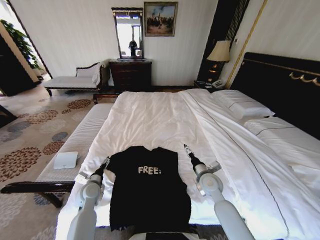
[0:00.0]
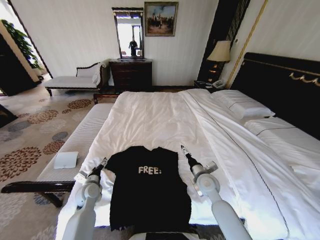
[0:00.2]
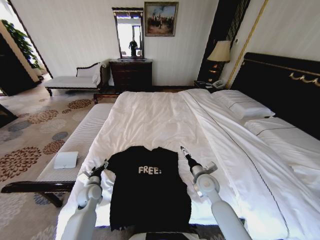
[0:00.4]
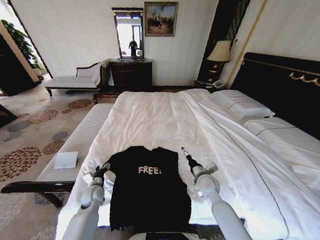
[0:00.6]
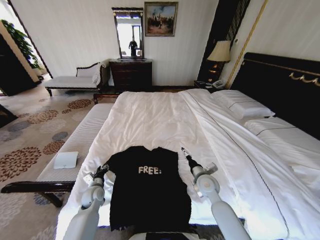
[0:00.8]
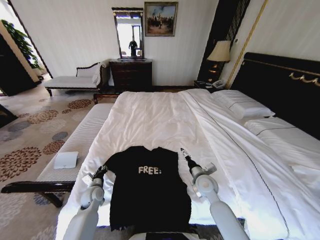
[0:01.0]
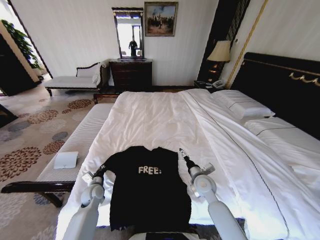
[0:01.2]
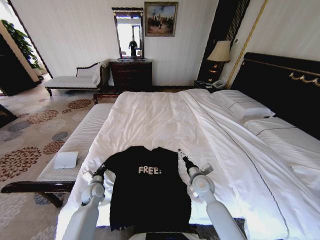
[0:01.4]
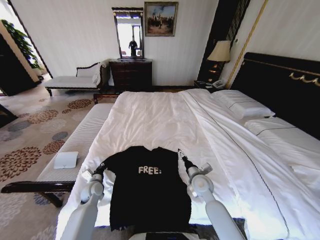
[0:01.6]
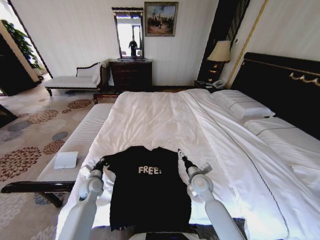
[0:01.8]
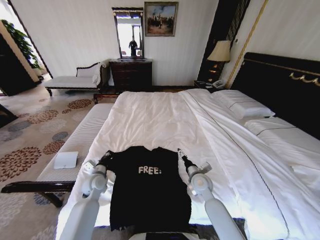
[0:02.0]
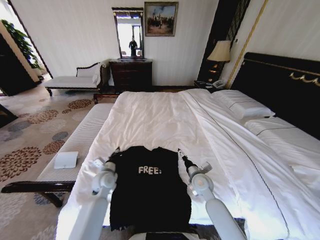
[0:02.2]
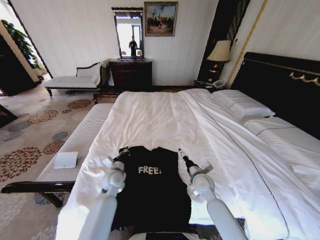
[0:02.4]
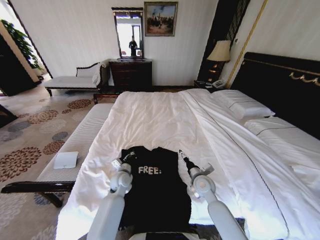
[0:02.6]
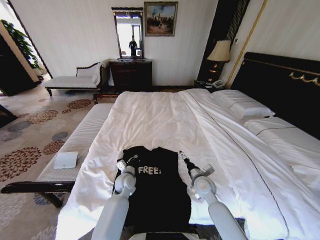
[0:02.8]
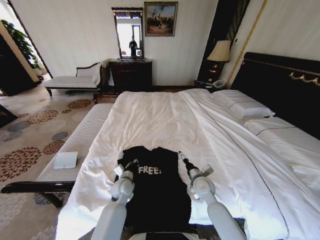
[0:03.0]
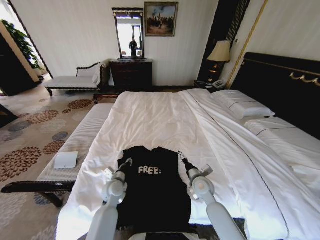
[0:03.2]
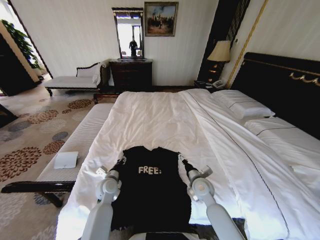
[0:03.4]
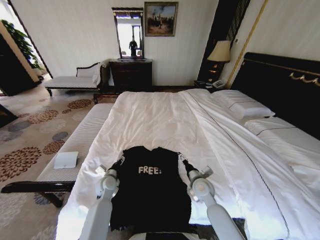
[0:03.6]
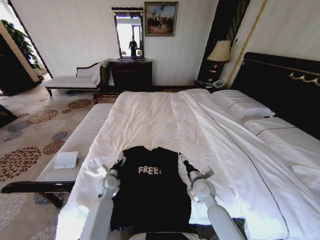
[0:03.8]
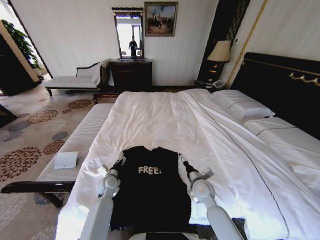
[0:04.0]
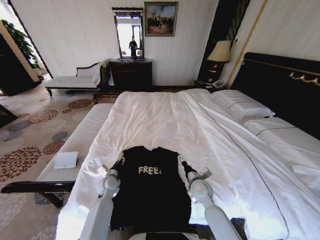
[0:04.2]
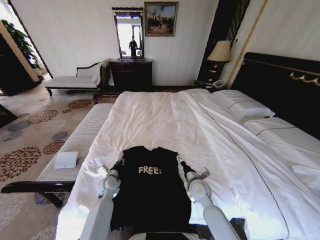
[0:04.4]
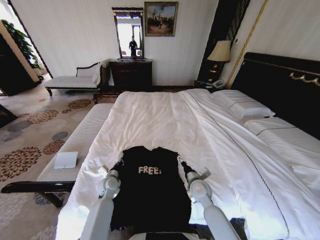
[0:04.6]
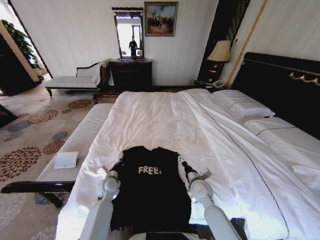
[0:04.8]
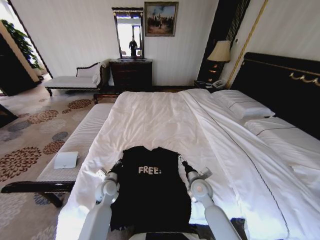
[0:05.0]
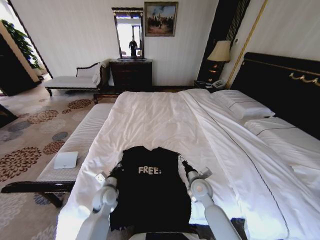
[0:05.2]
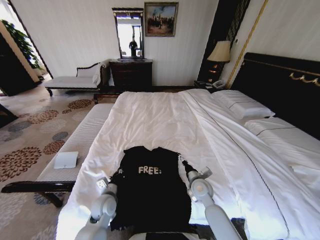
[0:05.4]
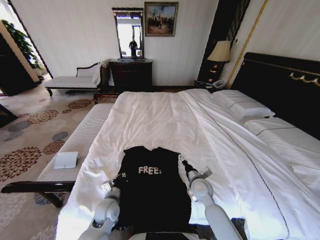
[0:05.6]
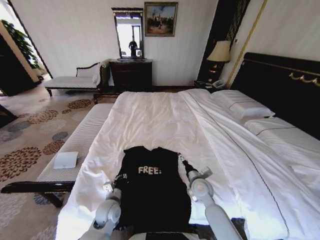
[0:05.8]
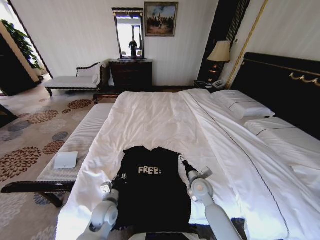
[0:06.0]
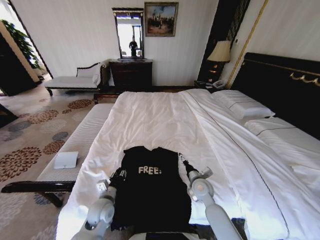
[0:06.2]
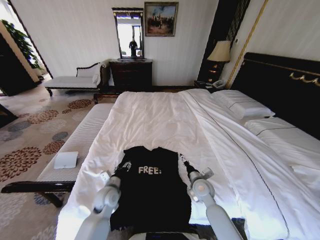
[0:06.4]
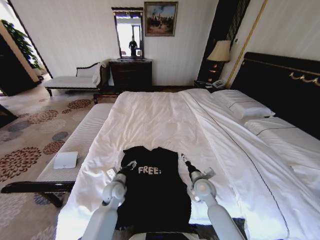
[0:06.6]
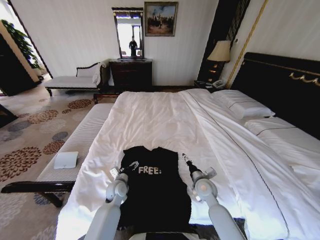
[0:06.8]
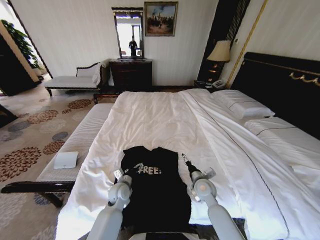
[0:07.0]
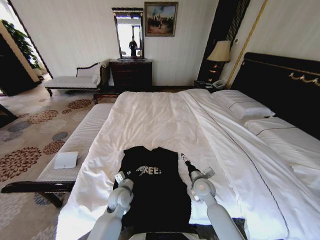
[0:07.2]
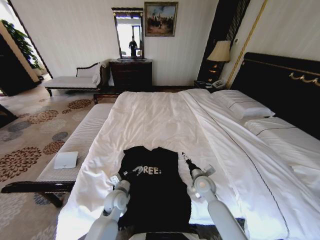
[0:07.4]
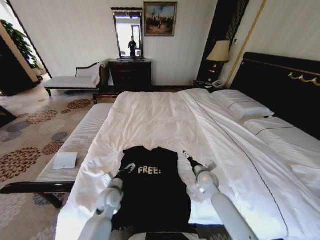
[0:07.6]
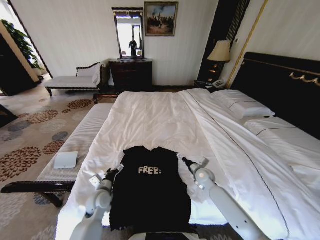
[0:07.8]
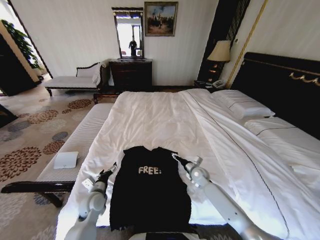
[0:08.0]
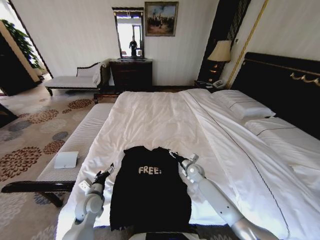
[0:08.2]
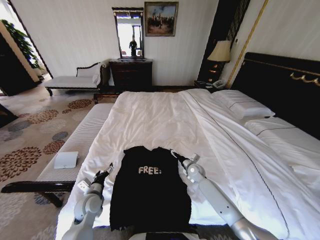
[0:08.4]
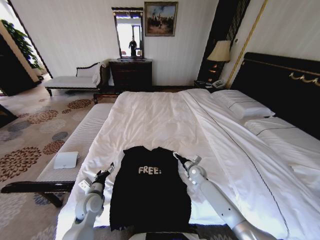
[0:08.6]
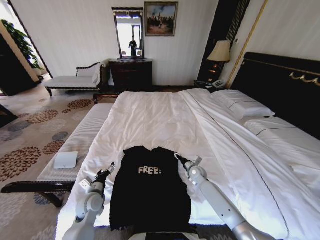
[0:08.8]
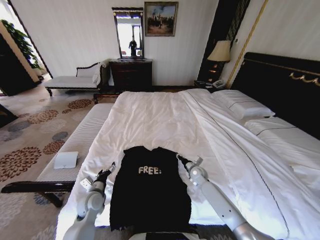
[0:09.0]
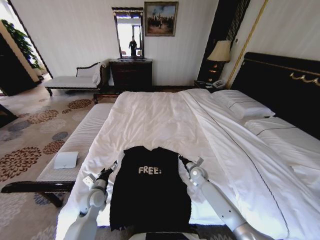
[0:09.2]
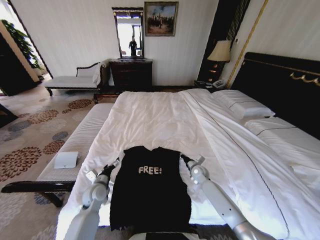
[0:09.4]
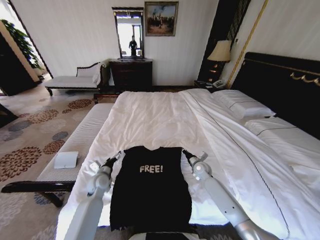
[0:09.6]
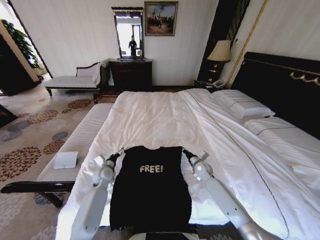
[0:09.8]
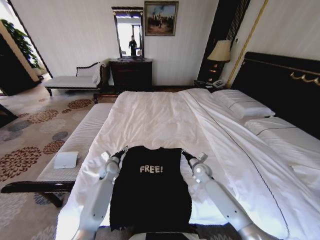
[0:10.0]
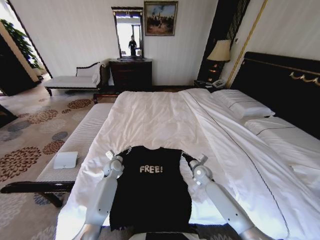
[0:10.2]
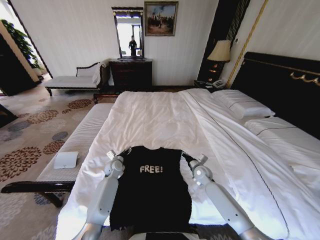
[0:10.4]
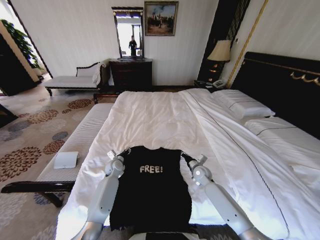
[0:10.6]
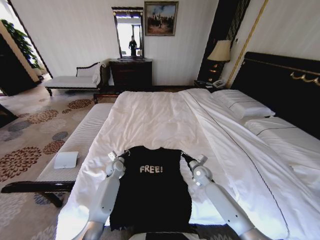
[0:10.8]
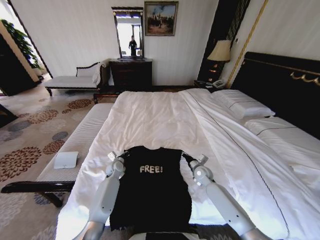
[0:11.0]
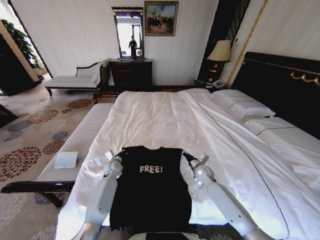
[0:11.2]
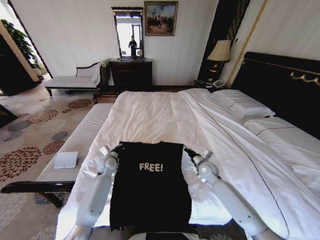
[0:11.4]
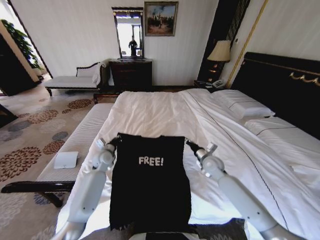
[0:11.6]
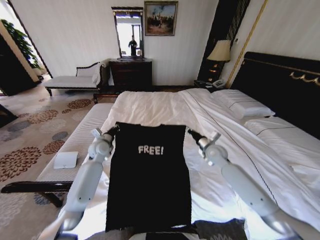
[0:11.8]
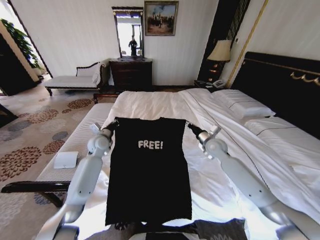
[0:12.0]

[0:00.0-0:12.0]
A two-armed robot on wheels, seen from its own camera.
Task of the whole recording: Fold the clothes on the bed.
0:00.0 to 0:01.6: The left gripper shifts by approximately 5 cm, and closes its fingers.
0:01.6 to 0:03.0: The left gripper goes roughly 15 cm to the right.
0:03.0 to 0:04.4: The left gripper travels to the left by about 10 cm, and opens, then closes once more.
0:04.4 to 0:06.0: The left gripper moves backward, approximately 10 cm.
0:06.0 to 0:07.6: The left gripper opens up; the right gripper changes place by roughly 5 cm.
0:07.6 to 0:09.0: The right gripper shifts some 10 cm downward and forward, and closes up. Meanwhile the left gripper travels to the left by some 5 cm.
0:09.0 to 0:10.4: The left gripper heads forward, covering about 20 cm.
0:10.4 to 0:12.0: The two grippers go roughly 15 cm upward. The left gripper closes up.

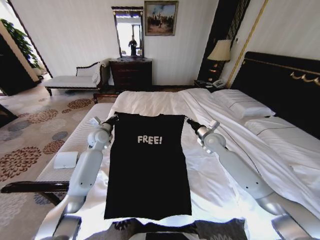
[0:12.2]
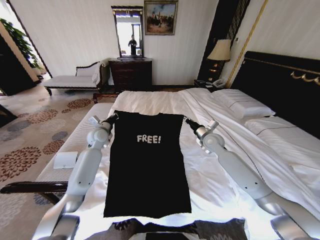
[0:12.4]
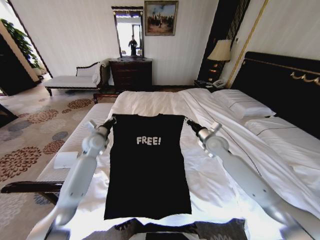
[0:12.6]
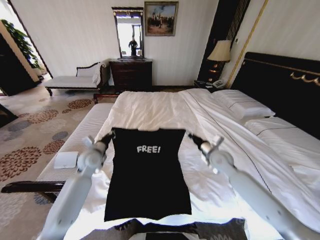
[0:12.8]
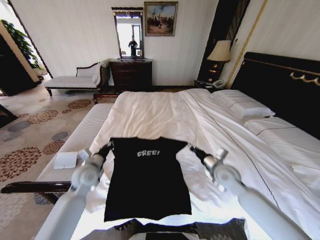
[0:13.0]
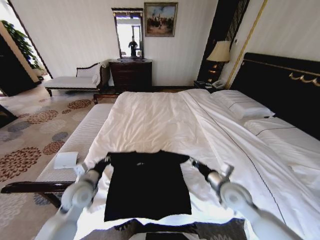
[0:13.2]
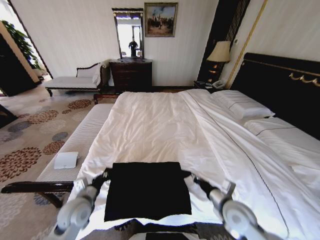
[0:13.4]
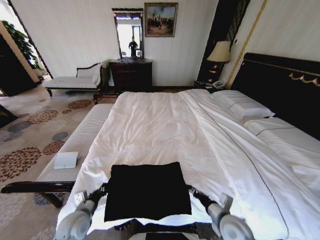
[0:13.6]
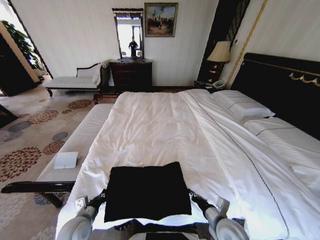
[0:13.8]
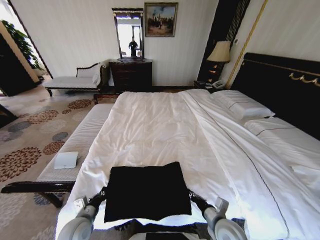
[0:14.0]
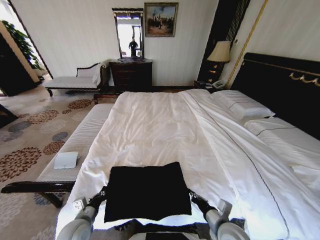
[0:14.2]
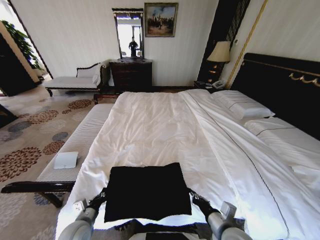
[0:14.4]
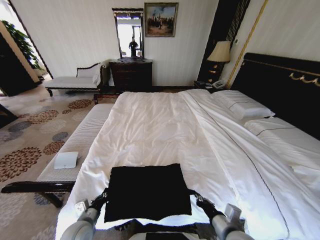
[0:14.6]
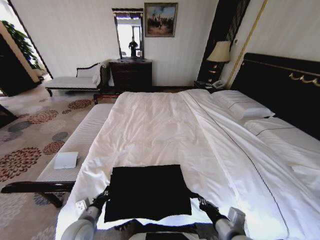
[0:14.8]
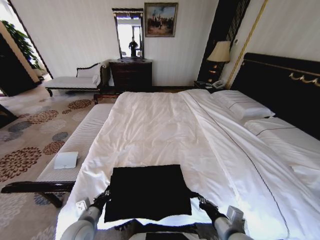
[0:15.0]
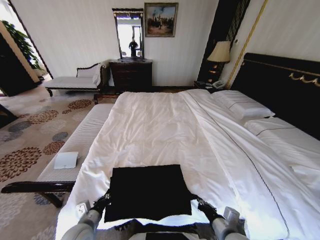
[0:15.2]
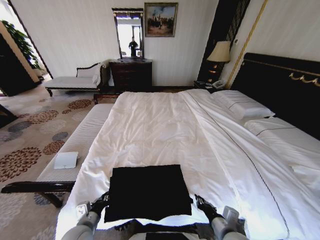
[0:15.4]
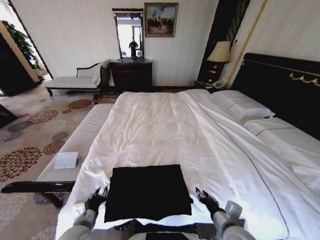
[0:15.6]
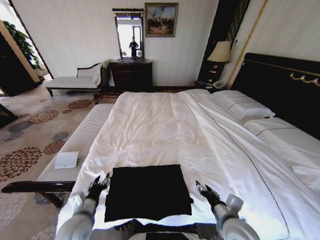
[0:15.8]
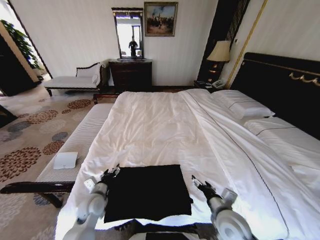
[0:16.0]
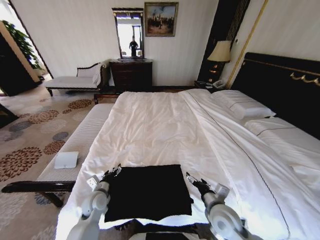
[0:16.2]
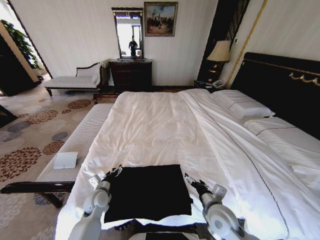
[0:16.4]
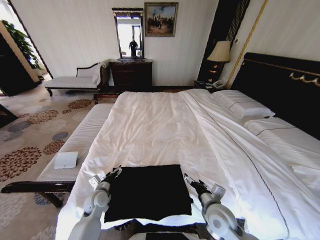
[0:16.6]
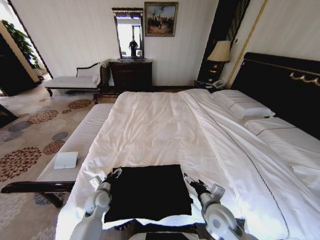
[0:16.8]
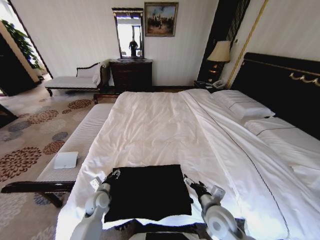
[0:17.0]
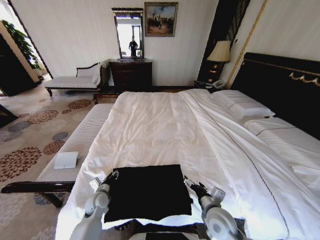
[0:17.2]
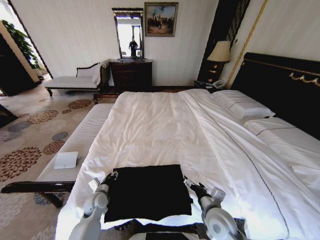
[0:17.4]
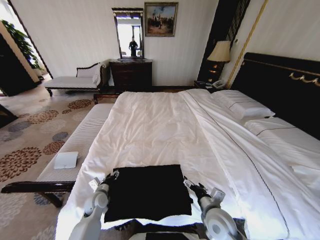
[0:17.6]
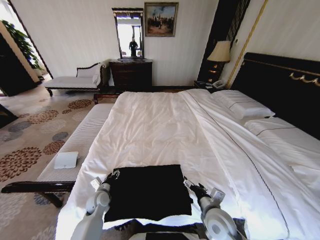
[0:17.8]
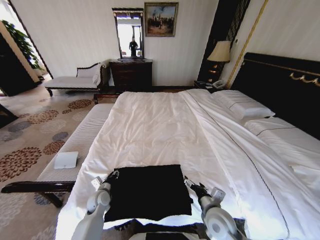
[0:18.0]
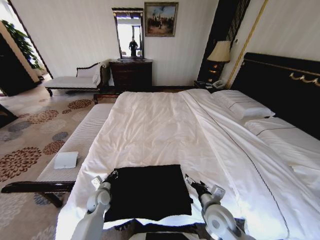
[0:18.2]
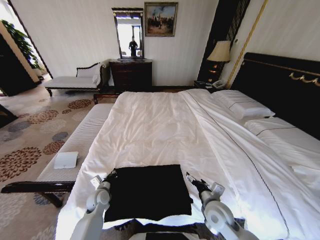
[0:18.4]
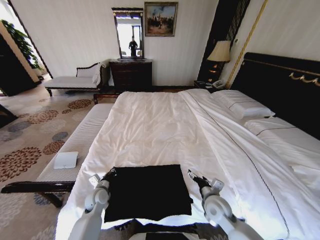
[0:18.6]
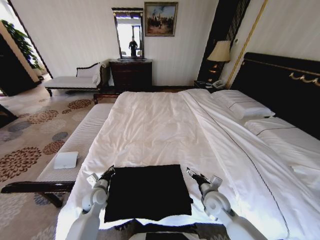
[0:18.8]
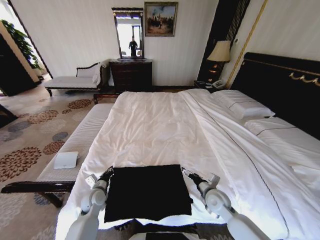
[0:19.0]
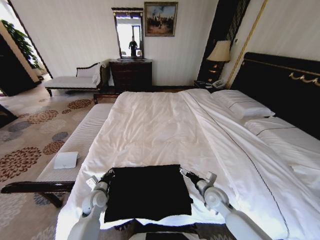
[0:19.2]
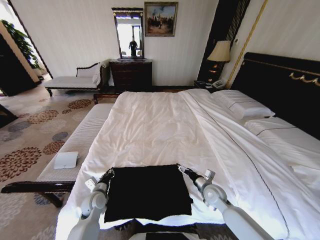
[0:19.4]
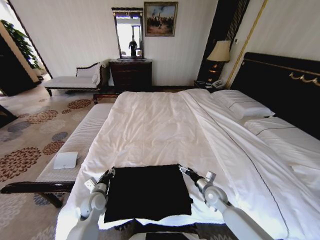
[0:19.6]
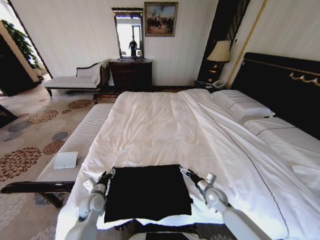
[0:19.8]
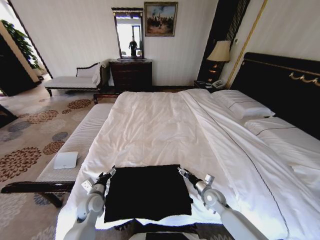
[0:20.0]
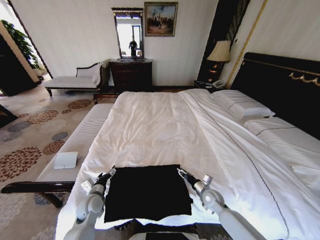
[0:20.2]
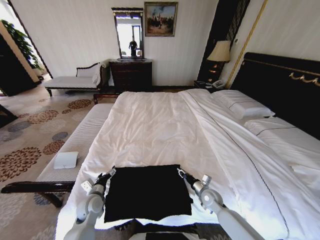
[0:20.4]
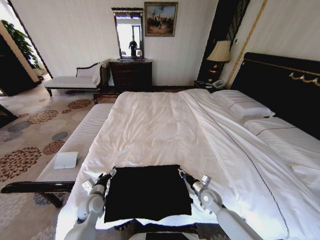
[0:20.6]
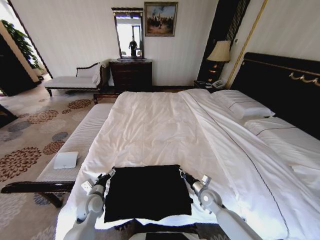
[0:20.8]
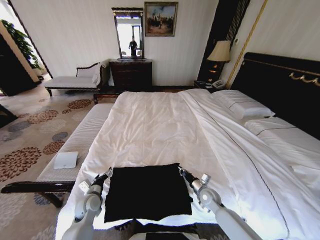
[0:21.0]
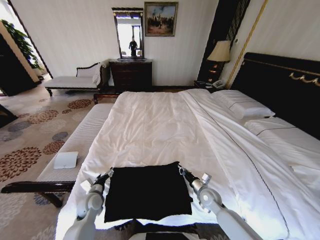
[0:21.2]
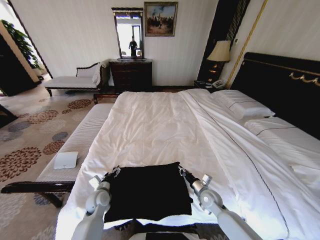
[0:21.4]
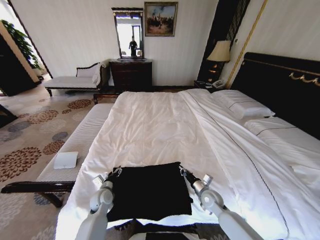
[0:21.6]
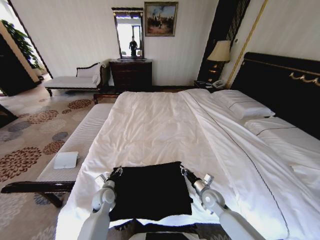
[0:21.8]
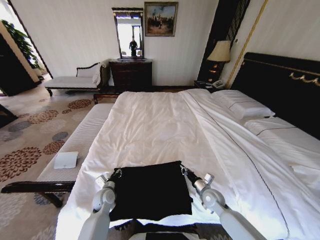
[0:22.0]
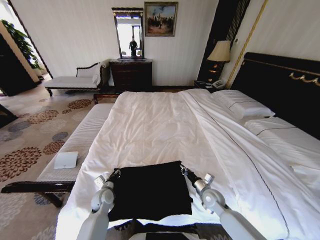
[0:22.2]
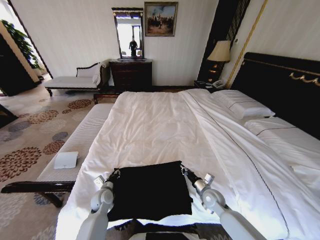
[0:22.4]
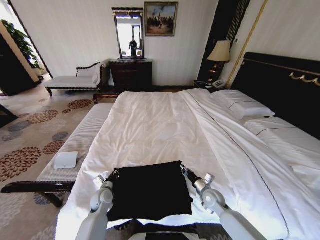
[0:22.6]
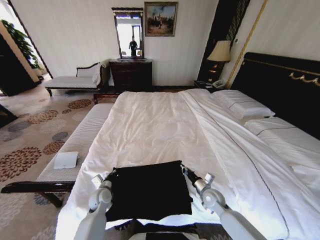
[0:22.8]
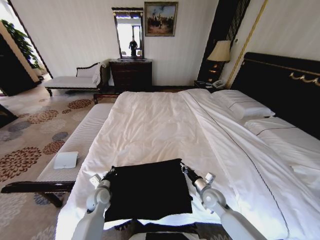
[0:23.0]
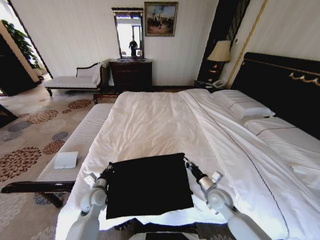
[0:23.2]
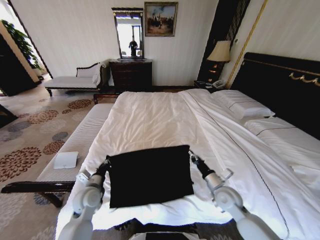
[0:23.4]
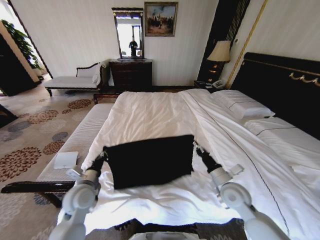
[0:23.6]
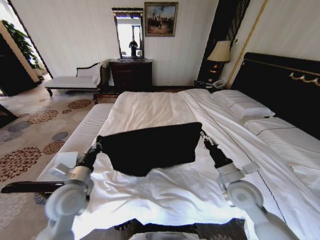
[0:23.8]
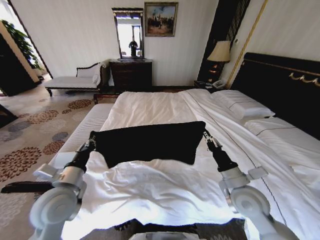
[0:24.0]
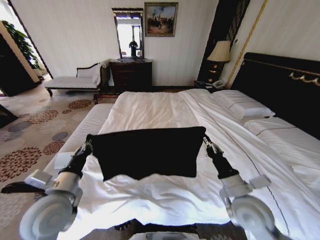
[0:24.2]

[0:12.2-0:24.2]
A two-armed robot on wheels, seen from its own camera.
Task of the whole recording: Fold the clothes on the bed.
0:12.2 to 0:13.8: Both grippers travel together backward and downward, some 35 cm.
0:13.8 to 0:15.2: The right gripper shifts by some 5 cm.
0:15.2 to 0:16.6: The right gripper is displaced forward by approximately 10 cm, and opens up. The left gripper is displaced forward by some 15 cm, and opens.
0:16.6 to 0:18.2: The left gripper closes up.
0:18.2 to 0:19.8: The left gripper ends up some 5 cm from where it was, and opens up, while the right gripper is displaced downward, forward and to the right by approximately 15 cm.
0:19.8 to 0:21.2: The right gripper closes its fingers.
0:21.2 to 0:22.6: The left gripper shifts by roughly 5 cm, and closes up.
0:22.6 to 0:24.2: Both grippers travel together upward and backward, roughly 25 cm.
